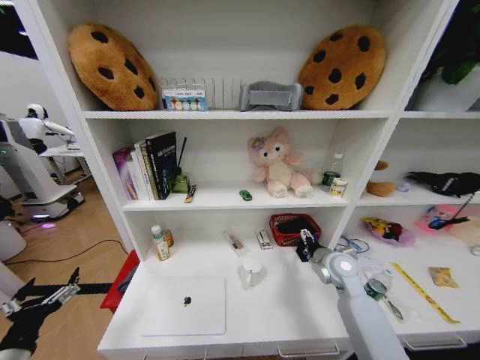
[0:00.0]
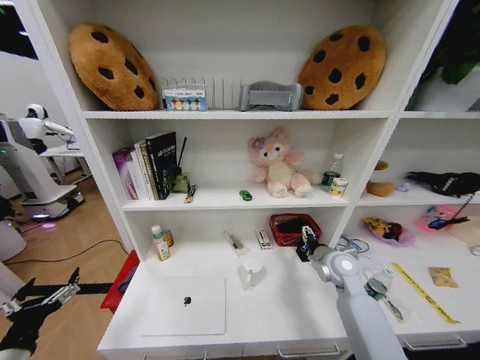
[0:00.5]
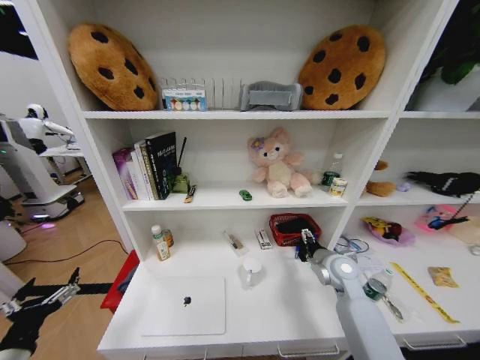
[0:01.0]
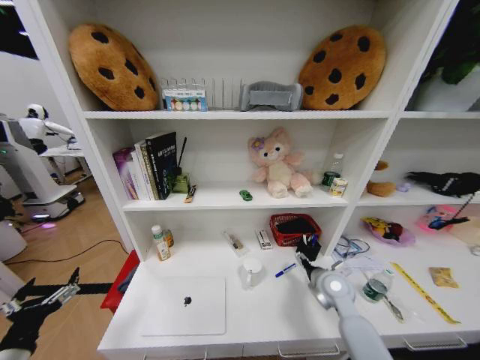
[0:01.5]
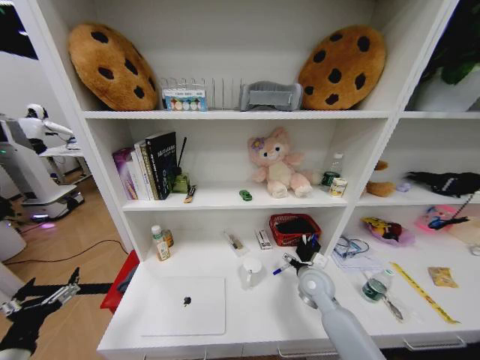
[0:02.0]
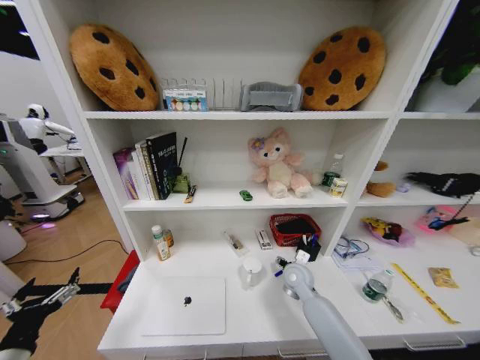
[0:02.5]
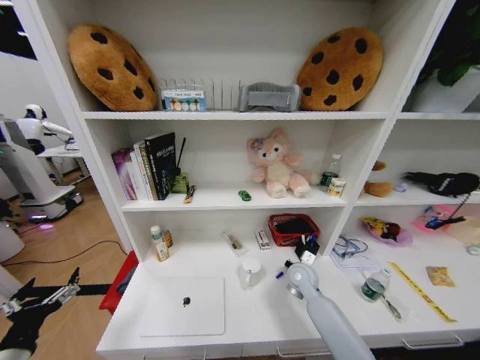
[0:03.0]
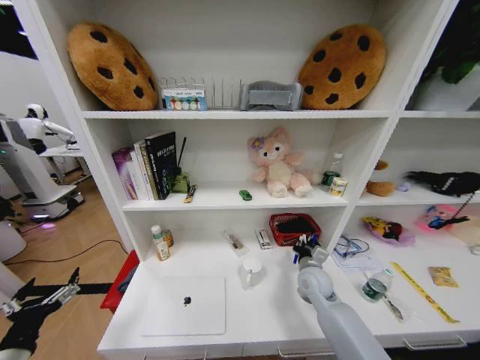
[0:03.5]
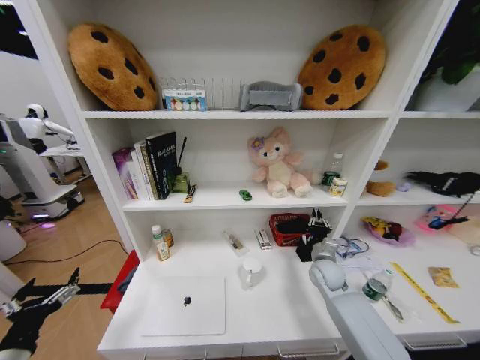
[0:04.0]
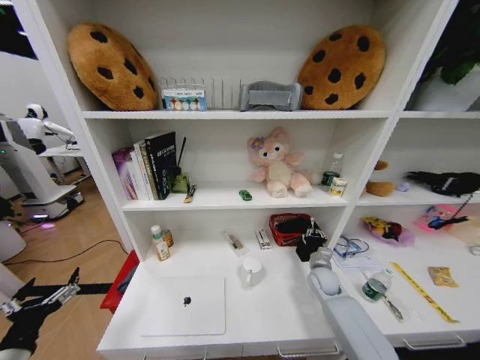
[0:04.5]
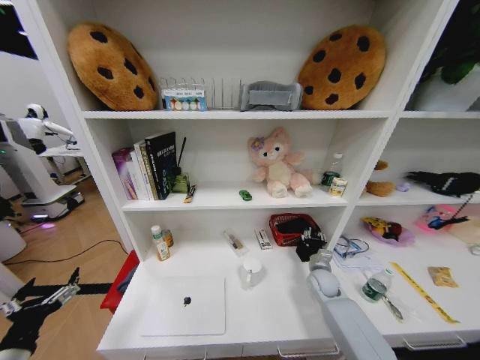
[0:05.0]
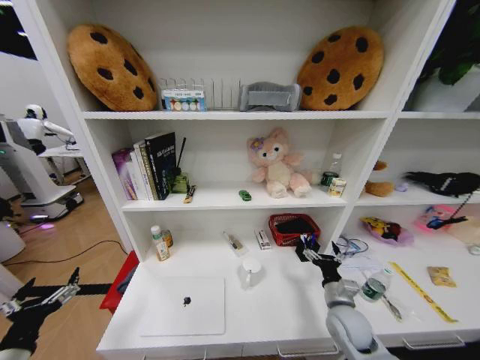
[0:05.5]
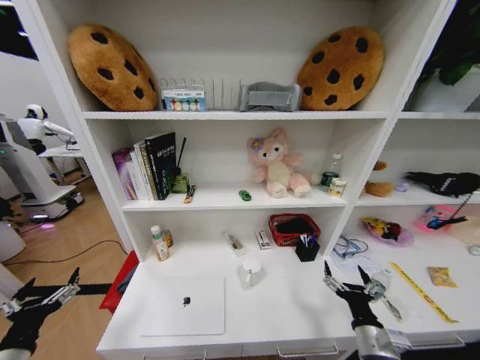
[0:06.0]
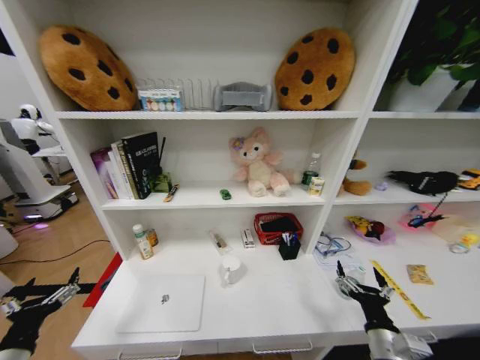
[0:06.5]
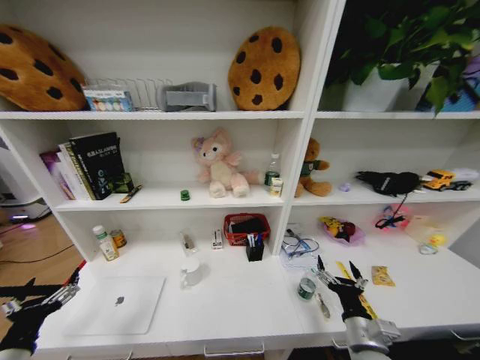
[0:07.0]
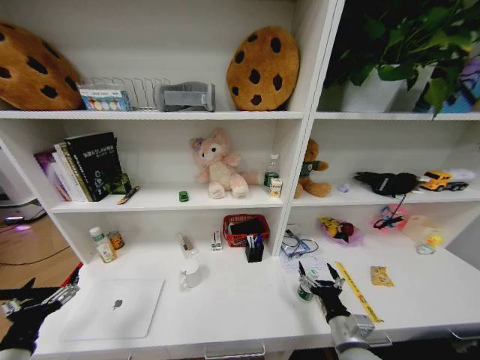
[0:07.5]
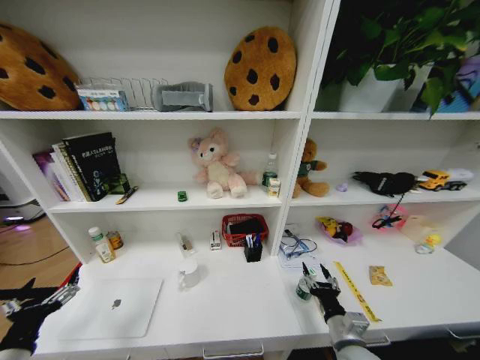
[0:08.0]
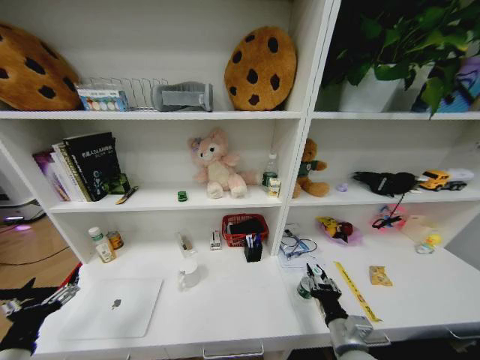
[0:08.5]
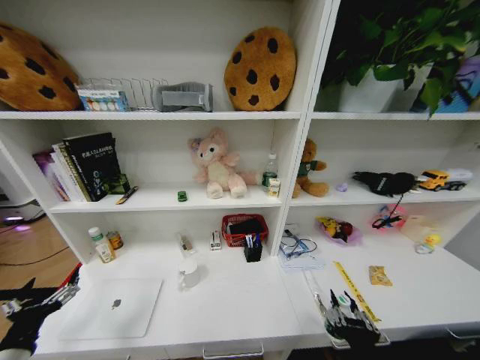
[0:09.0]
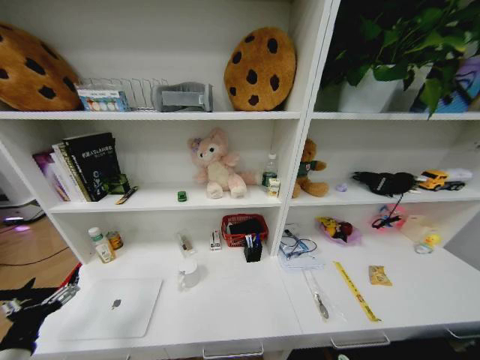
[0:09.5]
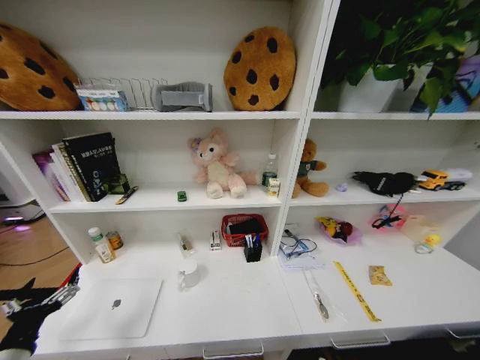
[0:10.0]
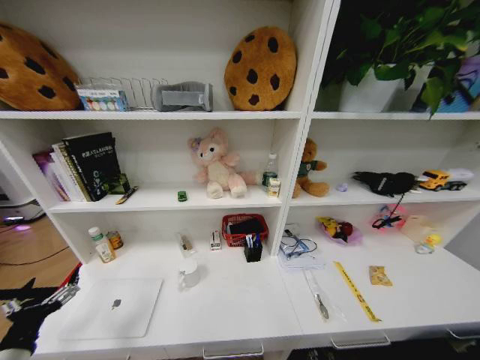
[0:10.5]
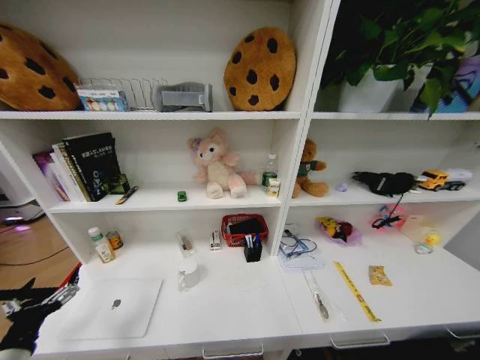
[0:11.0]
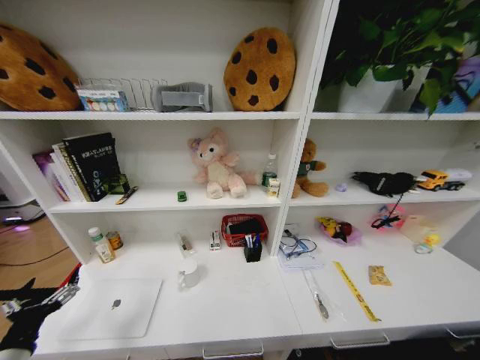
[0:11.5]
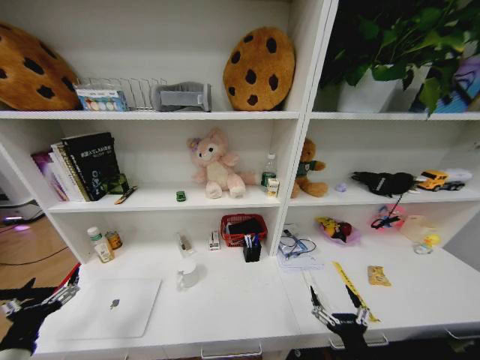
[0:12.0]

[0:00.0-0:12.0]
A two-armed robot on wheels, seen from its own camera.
Task of the whole recording: Organize the objects on the table.
0:00.0 to 0:02.0: The right gripper travels downward by some 5 cm.
0:02.0 to 0:04.0: The right gripper goes approximately 5 cm to the right, and closes its fingers.
0:04.0 to 0:06.0: The right gripper is displaced backward by roughly 25 cm, and opens.
0:08.0 to 0:10.0: The right gripper is displaced downward and backward by roughly 30 cm, and closes its fingers.
0:10.0 to 0:12.0: The right gripper travels upward by roughly 30 cm, and opens its fingers.

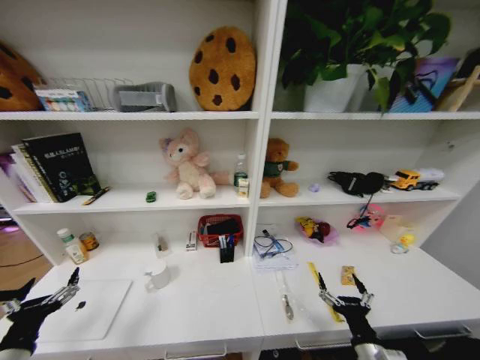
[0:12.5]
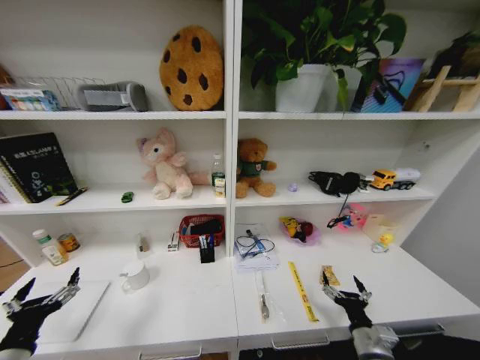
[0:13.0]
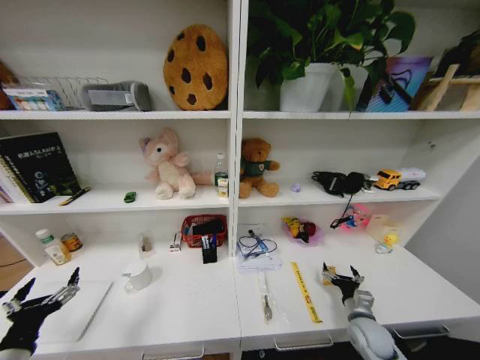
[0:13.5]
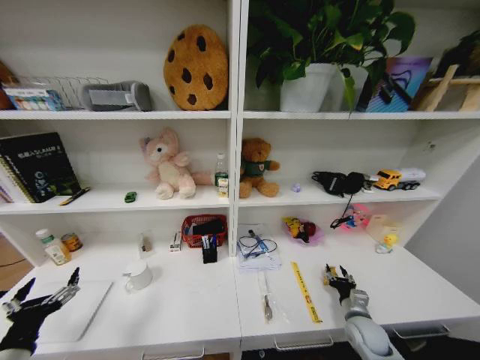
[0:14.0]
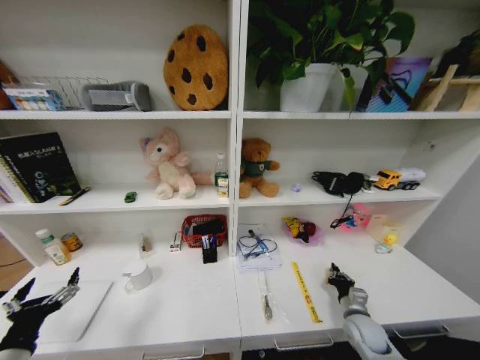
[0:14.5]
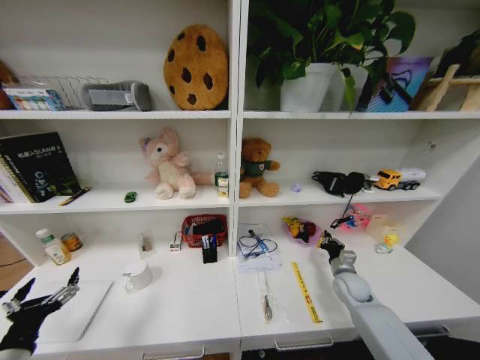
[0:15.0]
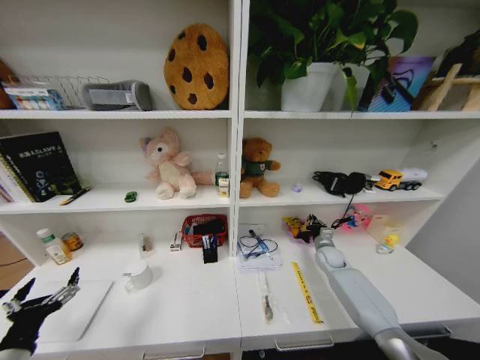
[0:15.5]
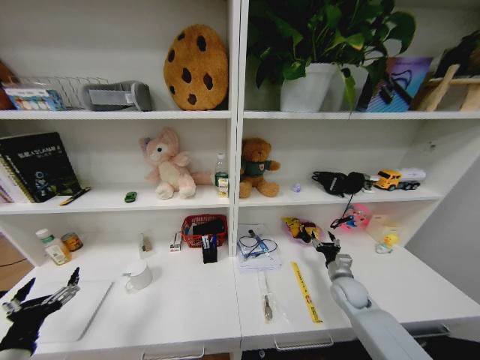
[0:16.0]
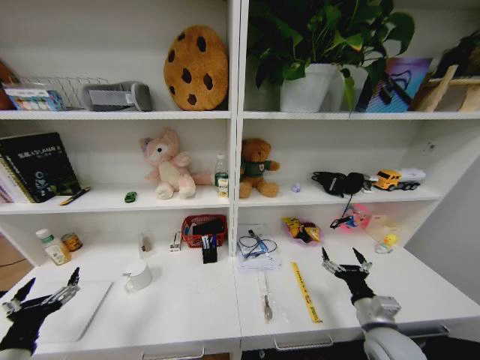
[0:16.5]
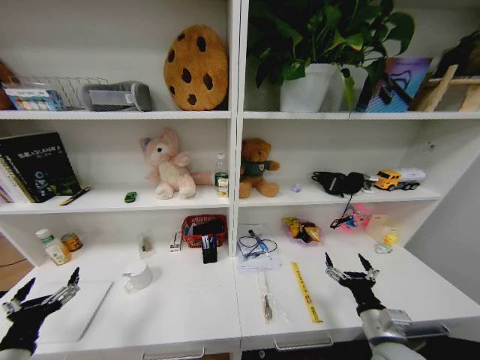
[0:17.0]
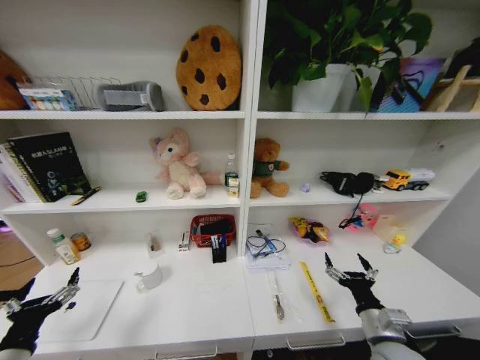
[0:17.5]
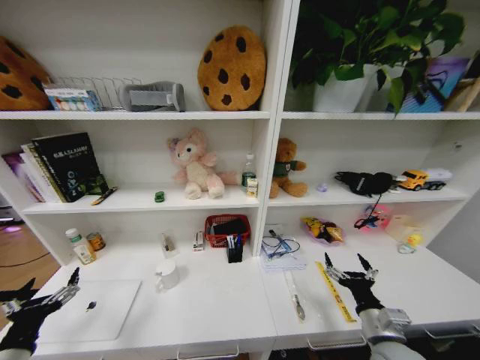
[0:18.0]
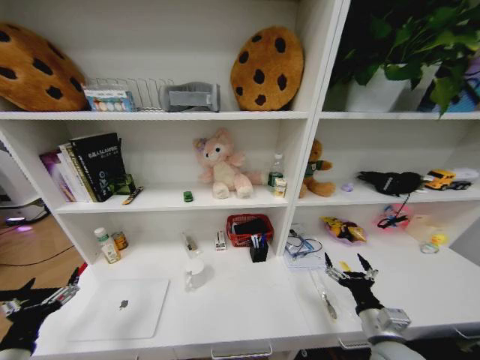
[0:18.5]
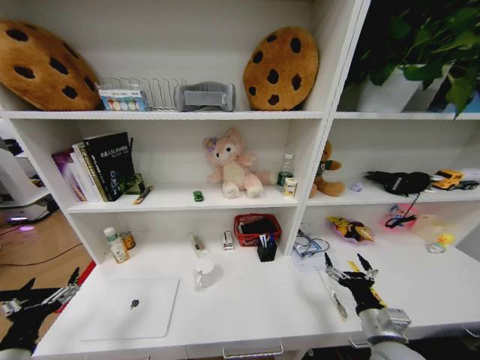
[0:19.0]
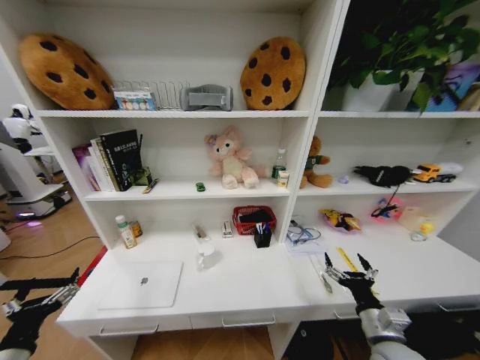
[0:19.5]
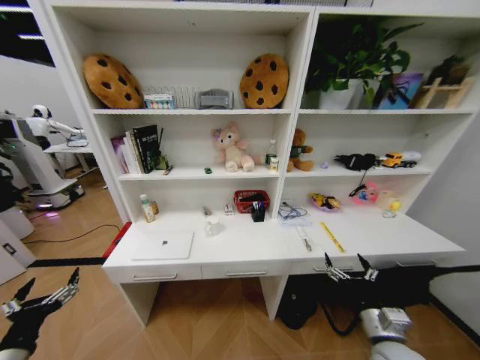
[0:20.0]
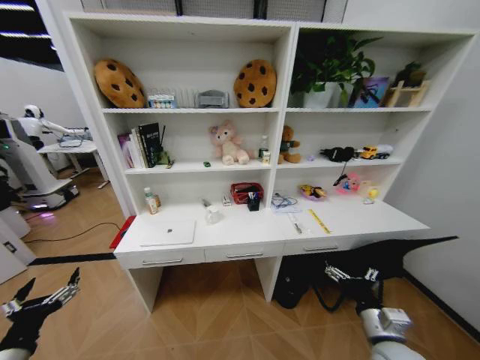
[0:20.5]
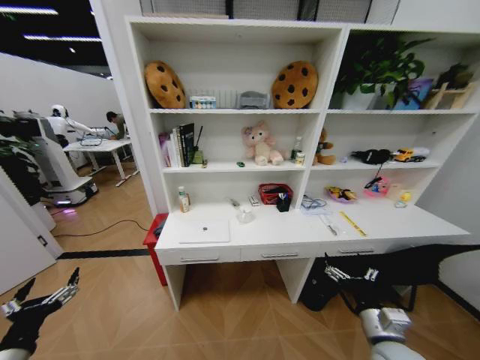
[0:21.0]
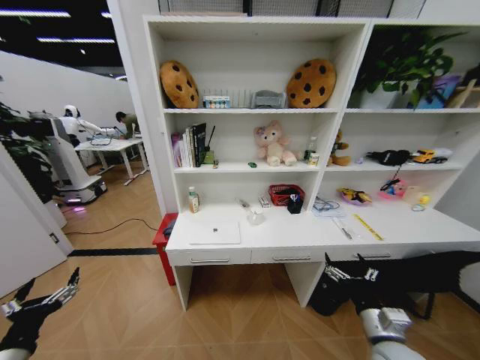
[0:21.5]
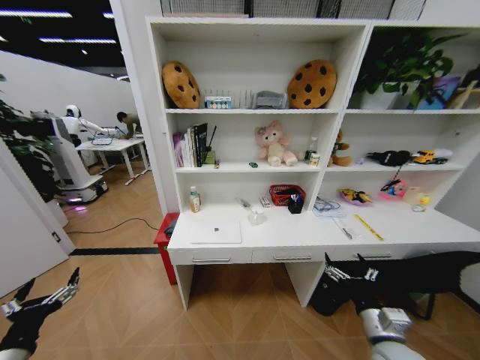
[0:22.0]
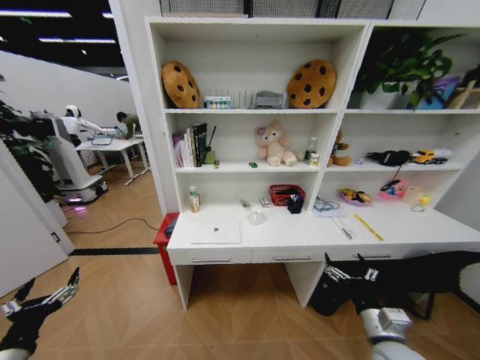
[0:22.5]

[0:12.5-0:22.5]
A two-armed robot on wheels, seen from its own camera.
Task of the whole recording: Organize the objects on the table.
0:12.5 to 0:14.5: The right gripper heads forward, downward and to the right, covering some 20 cm, and closes.
0:14.5 to 0:16.5: The right gripper moves upward, approximately 10 cm, travels forward and back again, roughly 20 cm each way, and opens up.

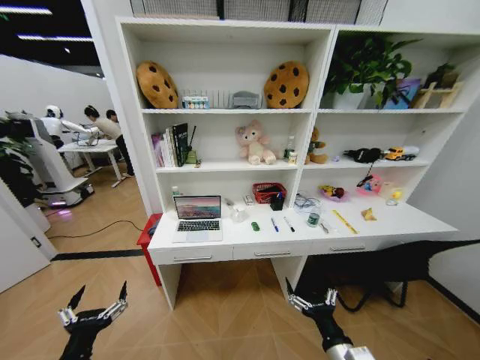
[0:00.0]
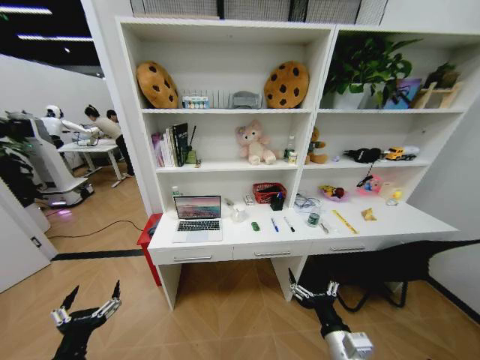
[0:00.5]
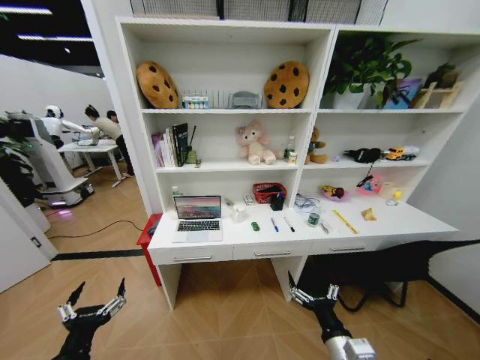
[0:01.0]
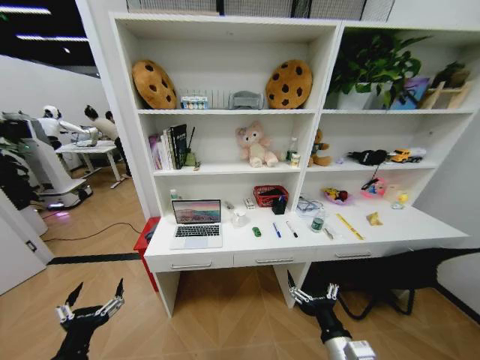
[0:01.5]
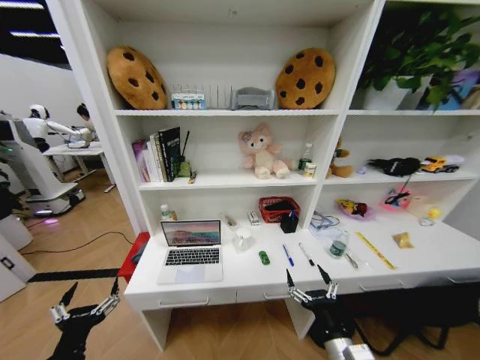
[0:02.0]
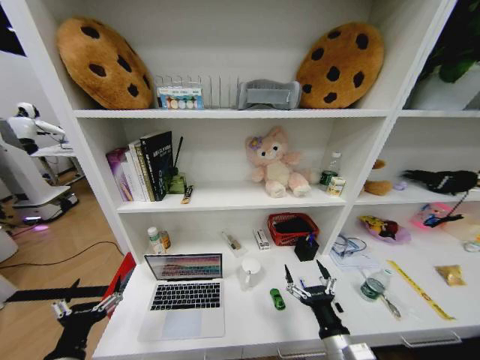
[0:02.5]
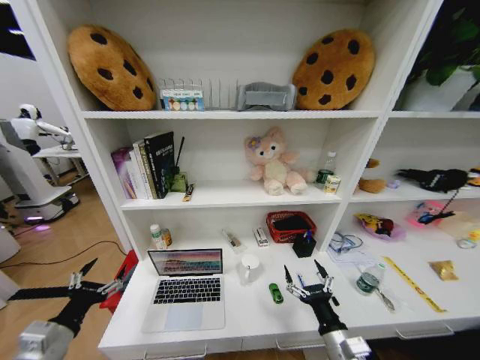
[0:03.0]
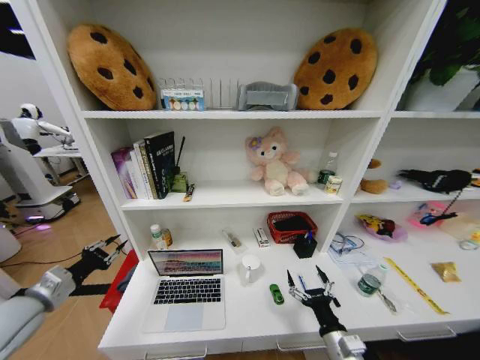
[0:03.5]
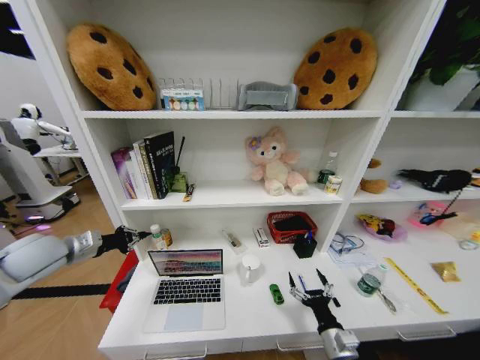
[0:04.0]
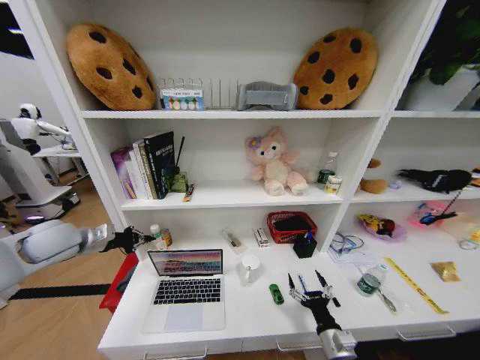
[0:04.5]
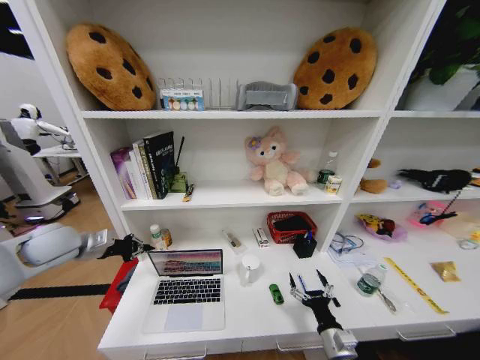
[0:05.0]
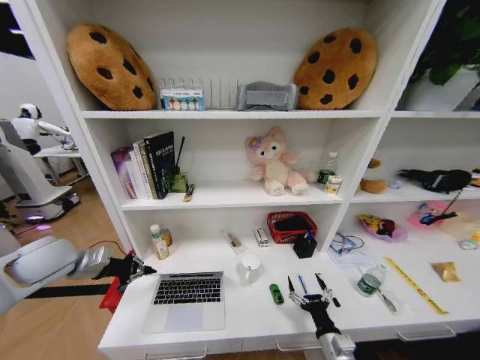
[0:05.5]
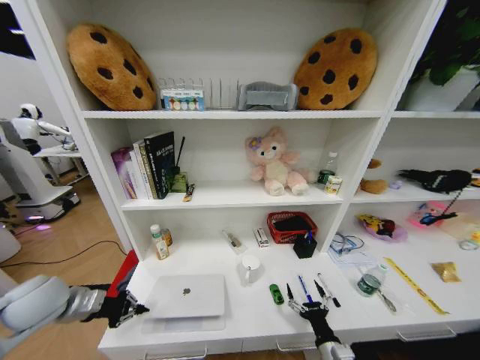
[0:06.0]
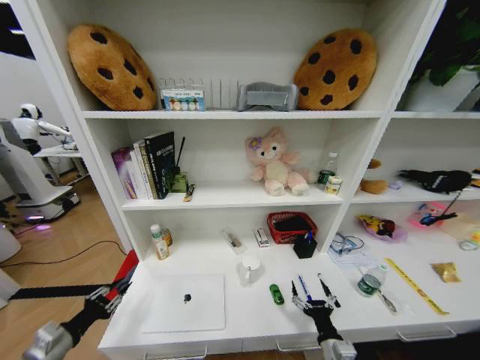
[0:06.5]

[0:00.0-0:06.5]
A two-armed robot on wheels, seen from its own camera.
Task of the whole recording: Organize the objects on the table.
0:02.0 to 0:04.5: The left gripper shifts roughly 35 cm forward and upward, and closes its fingers. The right gripper shifts approximately 10 cm downward.
0:04.5 to 0:06.5: The left gripper travels backward and downward by roughly 20 cm.
